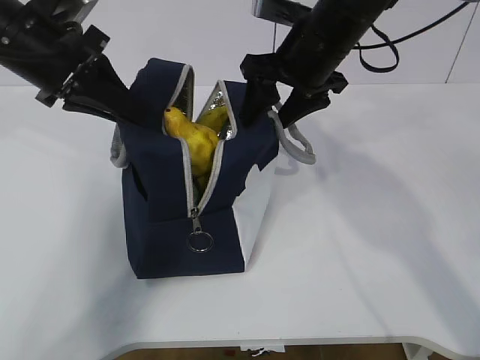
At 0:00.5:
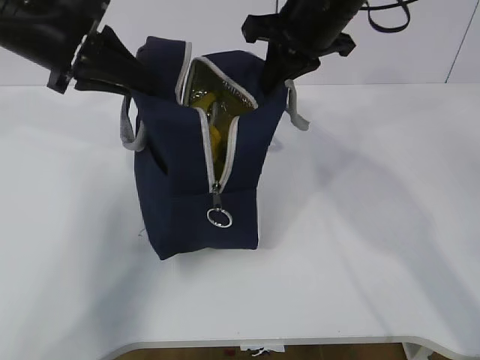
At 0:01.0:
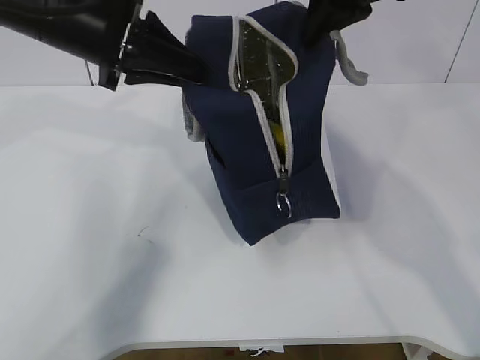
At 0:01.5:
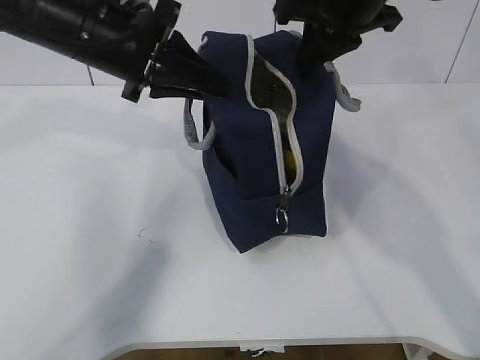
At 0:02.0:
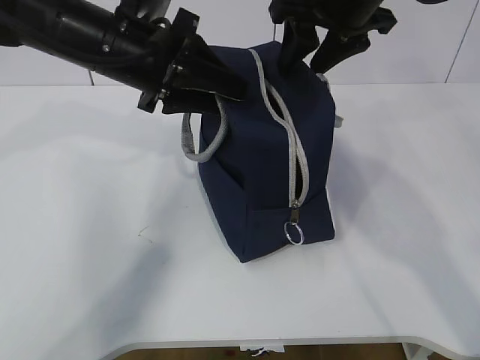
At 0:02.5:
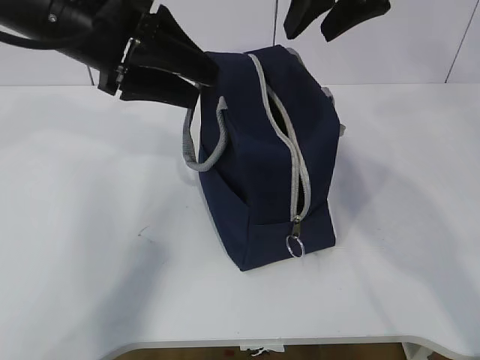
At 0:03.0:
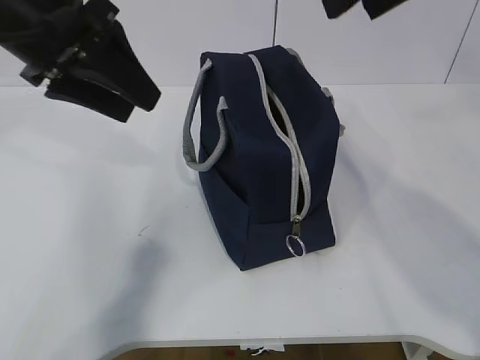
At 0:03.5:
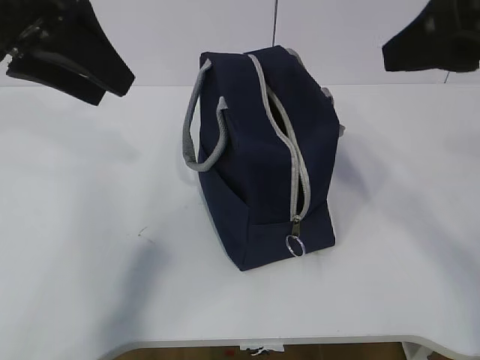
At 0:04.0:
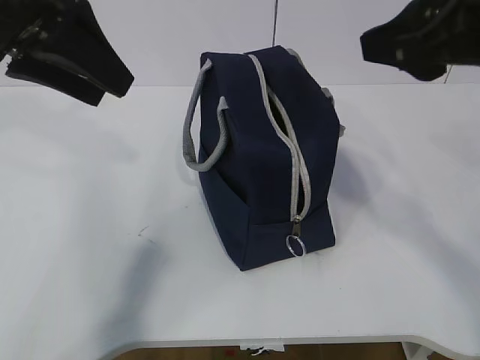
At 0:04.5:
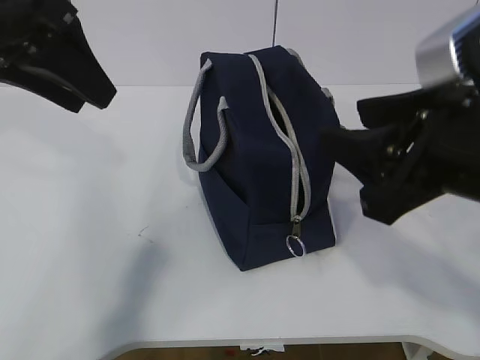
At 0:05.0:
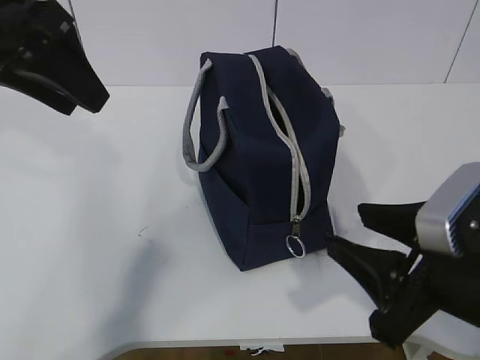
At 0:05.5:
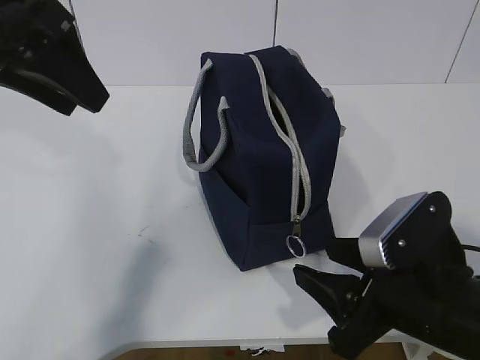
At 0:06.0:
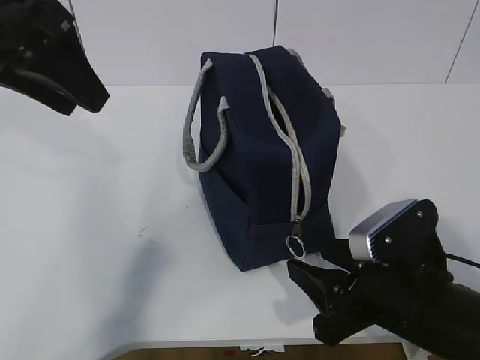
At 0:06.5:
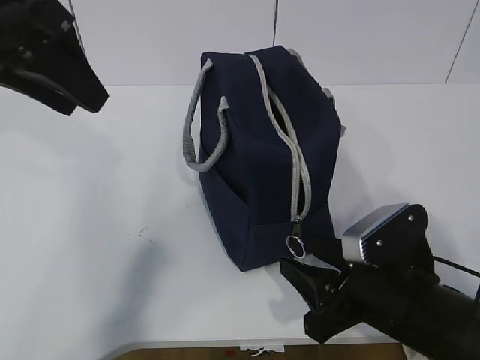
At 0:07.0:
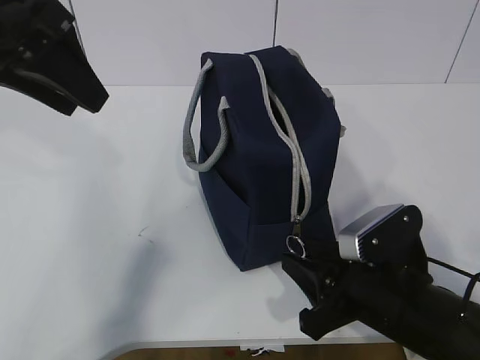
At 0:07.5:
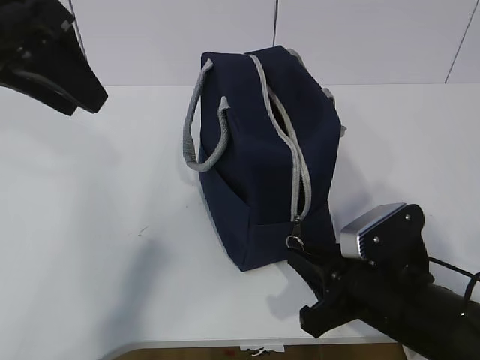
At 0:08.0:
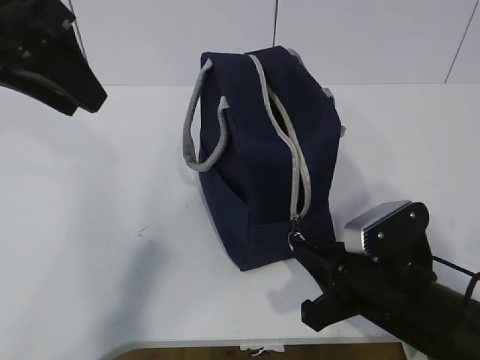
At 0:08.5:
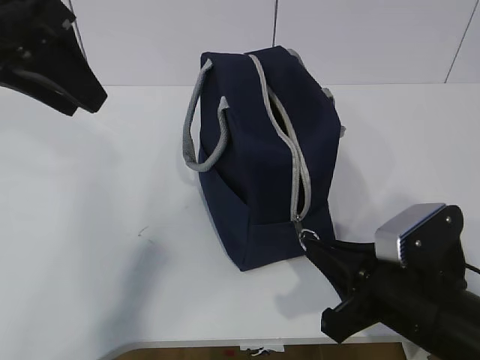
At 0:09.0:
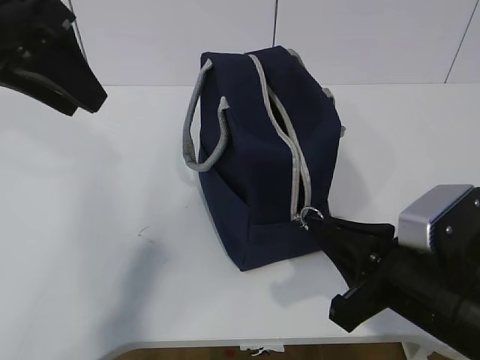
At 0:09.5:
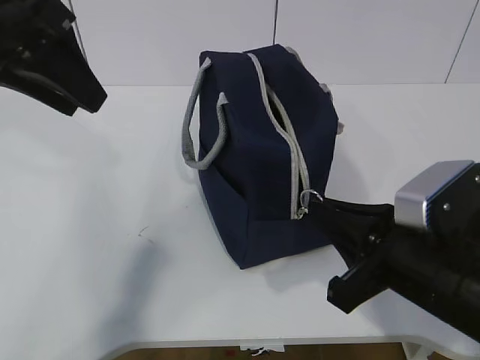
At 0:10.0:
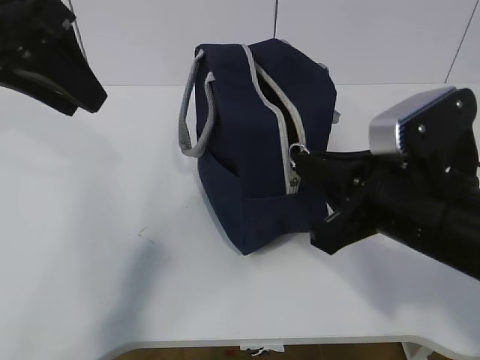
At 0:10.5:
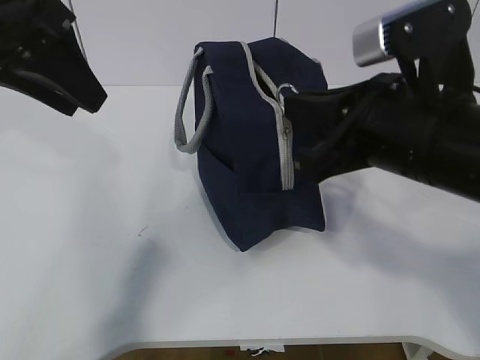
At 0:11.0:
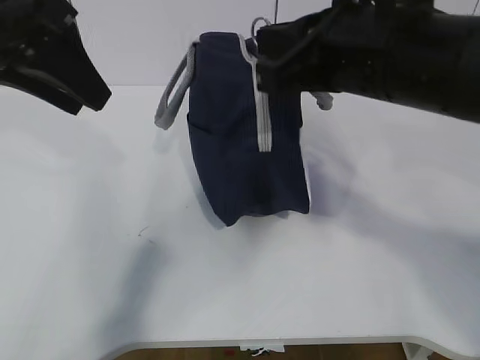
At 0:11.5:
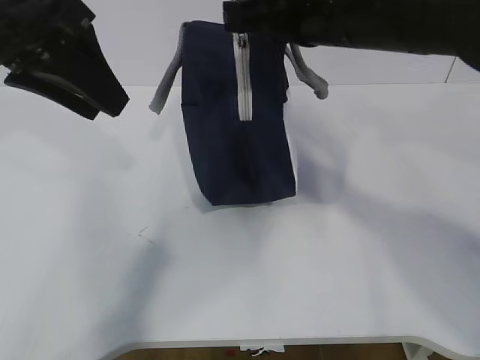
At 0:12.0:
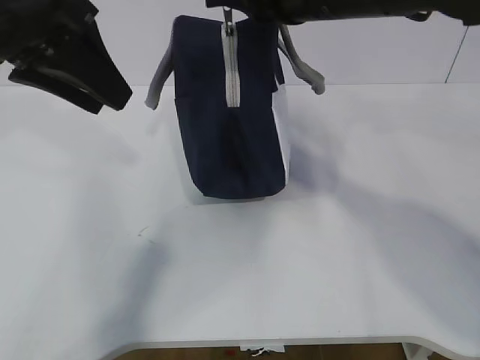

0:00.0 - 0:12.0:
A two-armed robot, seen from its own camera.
Step, 0:00.0 - 0:11.5: Grab the lunch bag with your left hand.
0:00.0 - 0:02.0: The right gripper moves upward, some 5 cm, and closes, then reopens. Meanwhile the left gripper is displaced to the right by some 10 cm, and opens up.
0:02.0 - 0:04.0: The right gripper heads backward, covering approximately 15 cm; the left gripper heads upward, to the left and backward, covering roughly 15 cm.
0:04.0 - 0:06.0: The right gripper is displaced downward by about 25 cm.
0:06.0 - 0:08.0: The right gripper closes.
0:08.0 - 0:10.0: The right gripper heads upward, covering some 10 cm.
0:10.0 - 0:12.0: The right gripper shifts roughly 20 cm upward, forward and to the left.

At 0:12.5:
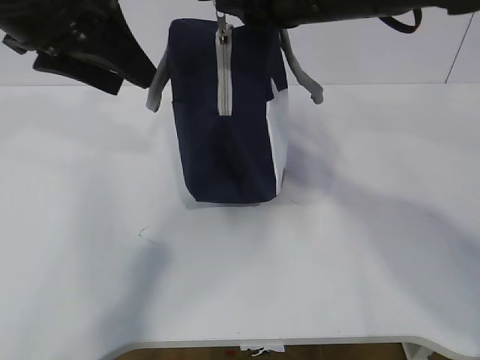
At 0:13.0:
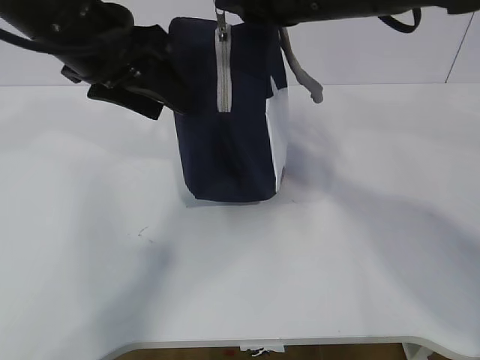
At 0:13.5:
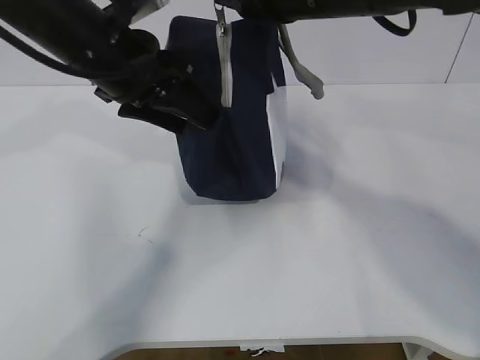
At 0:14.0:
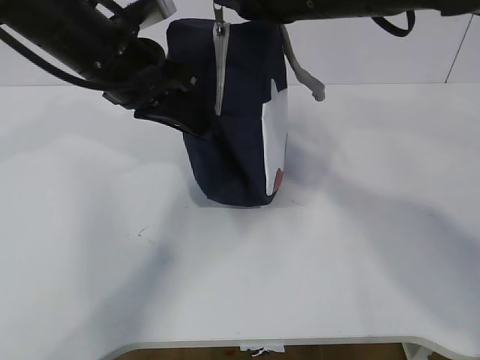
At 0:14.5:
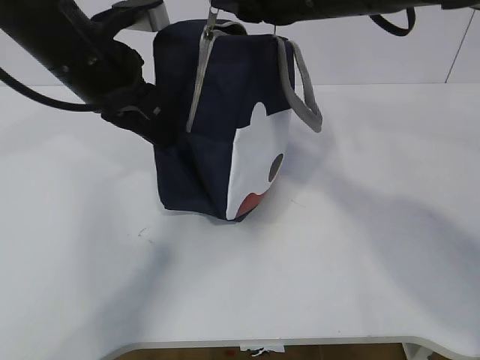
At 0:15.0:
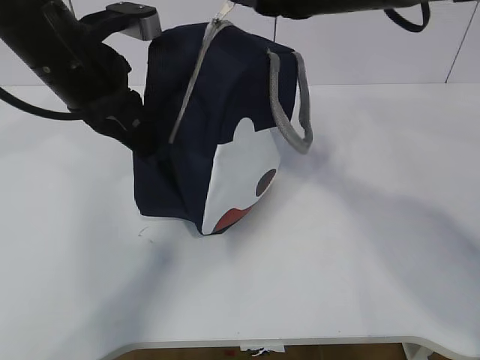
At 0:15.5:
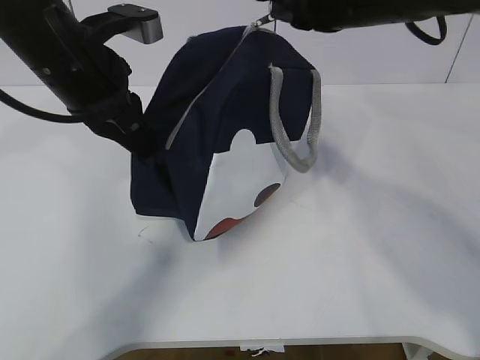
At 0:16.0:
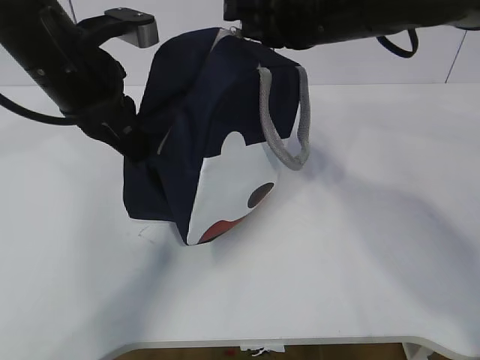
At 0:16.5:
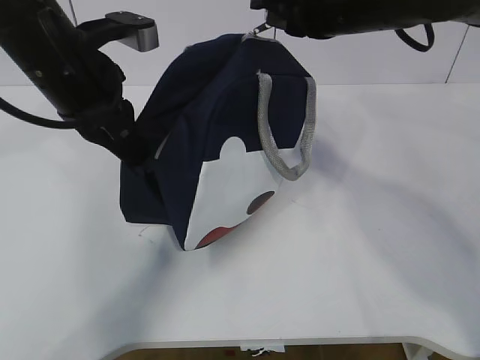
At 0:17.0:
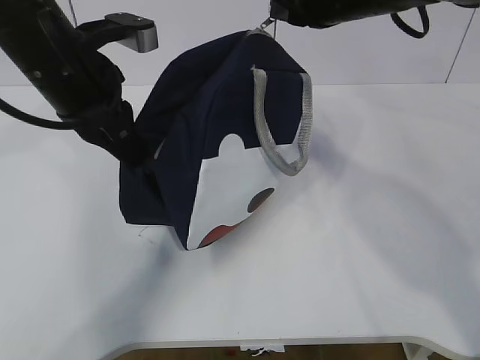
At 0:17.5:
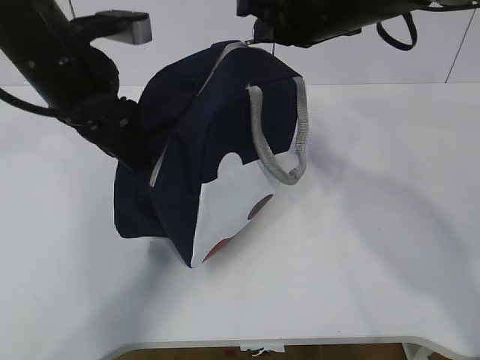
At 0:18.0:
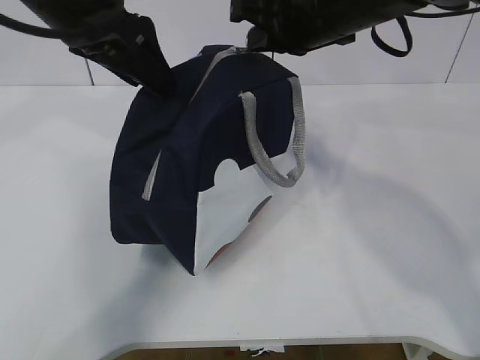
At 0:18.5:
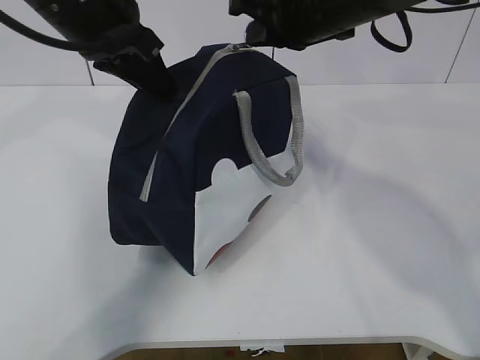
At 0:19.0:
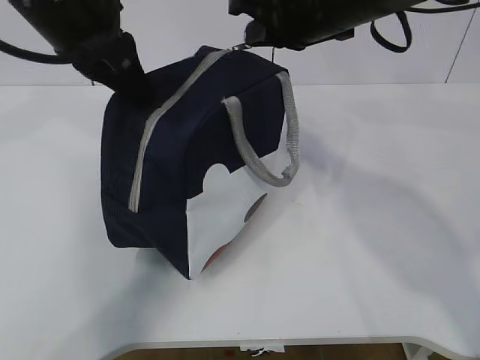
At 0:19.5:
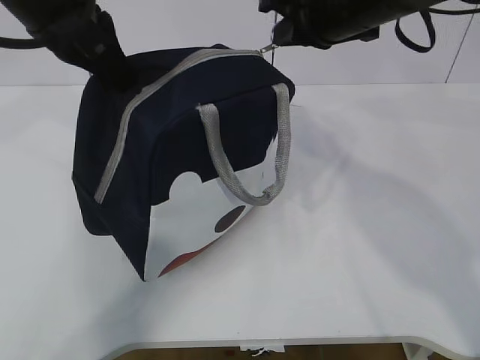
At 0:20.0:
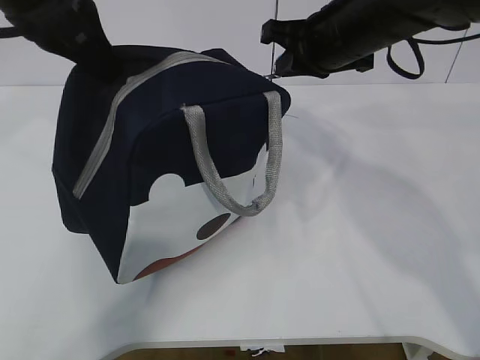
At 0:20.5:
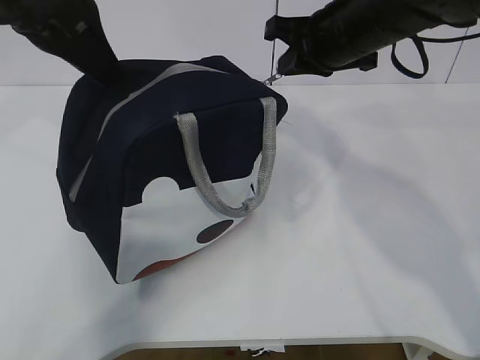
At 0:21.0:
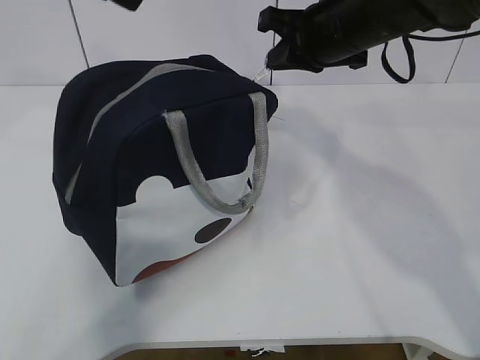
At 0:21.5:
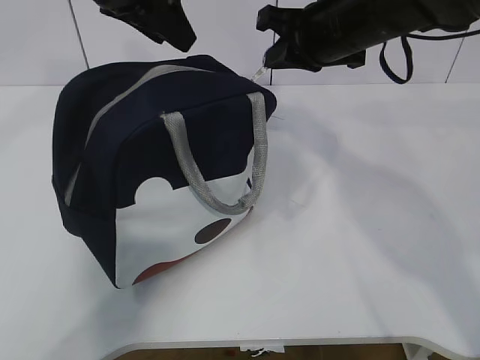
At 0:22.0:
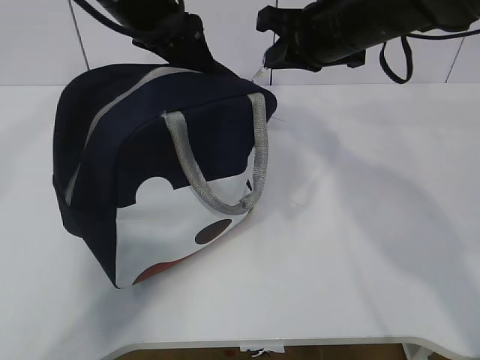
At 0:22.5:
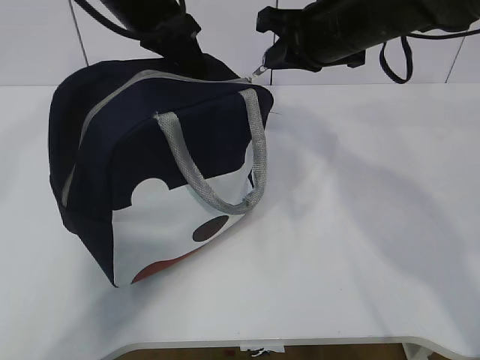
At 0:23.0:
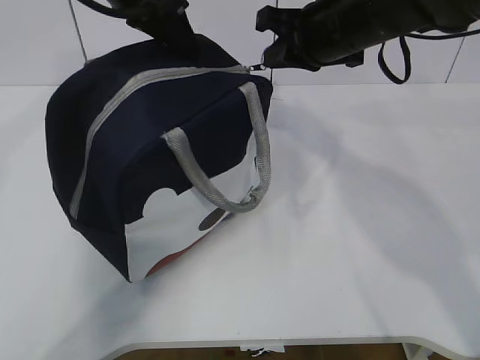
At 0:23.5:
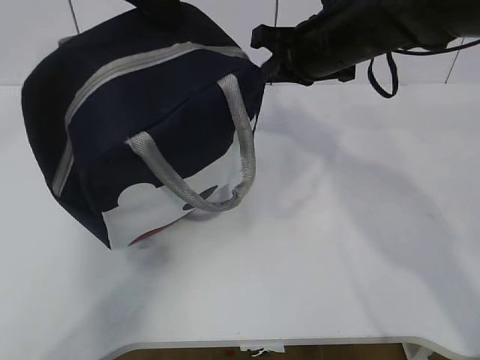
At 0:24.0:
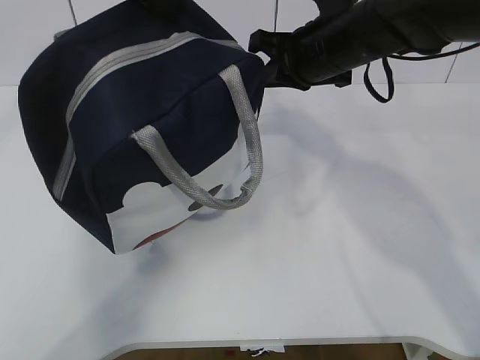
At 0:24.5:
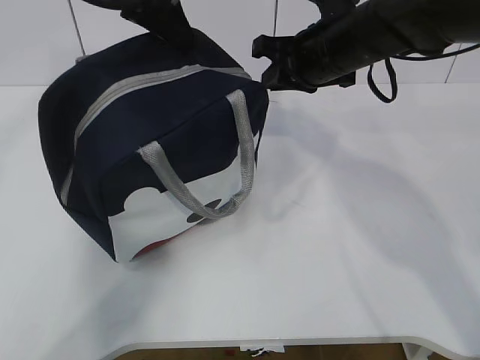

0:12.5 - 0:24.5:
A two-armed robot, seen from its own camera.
Step, 0:12.5 - 0:15.0: Pull the zipper with your right hand.
0:12.5 - 0:14.5: The left gripper is displaced downward by approximately 10 cm, and closes up.
0:14.5 - 0:16.5: The right gripper is displaced forward by about 5 cm.
0:16.5 - 0:18.5: The left gripper moves roughly 5 cm, and opens, then closes again.
0:18.5 - 0:20.5: The right gripper shifts by about 5 cm. Meanwhile the left gripper moves roughly 5 cm, and opens up.
0:20.5 - 0:22.5: The left gripper travels forward, to the right and downward by roughly 15 cm, and closes up.

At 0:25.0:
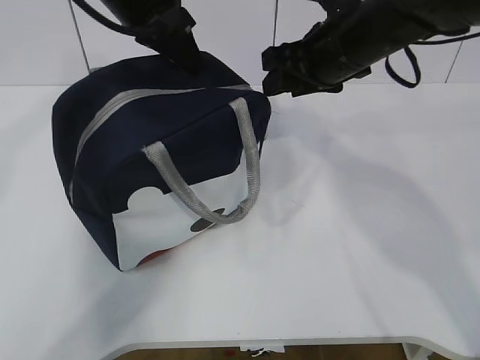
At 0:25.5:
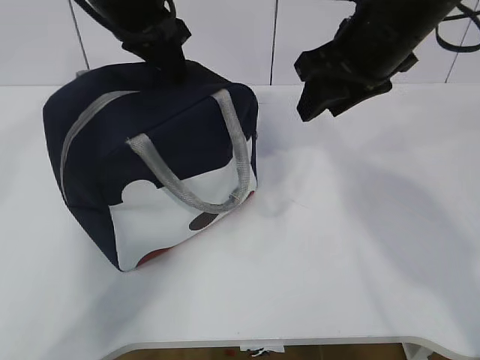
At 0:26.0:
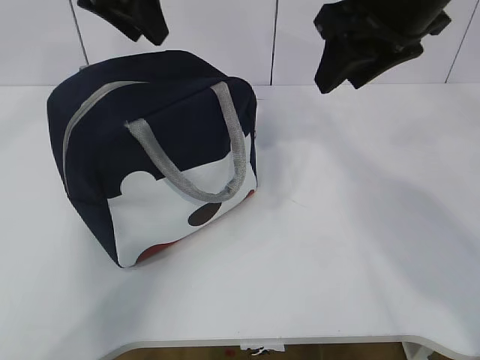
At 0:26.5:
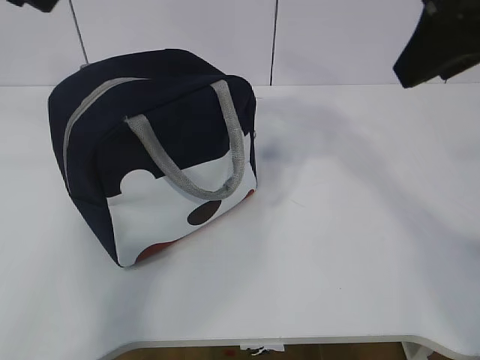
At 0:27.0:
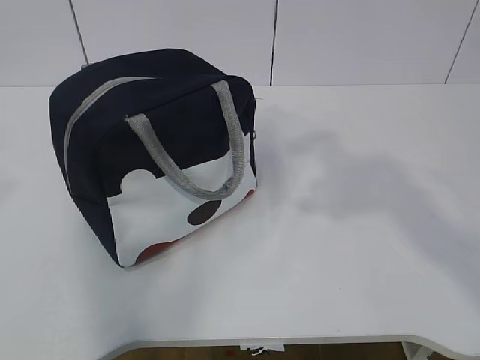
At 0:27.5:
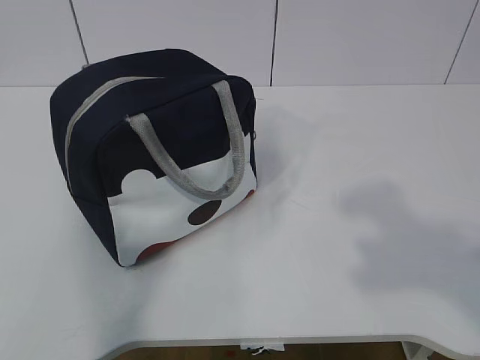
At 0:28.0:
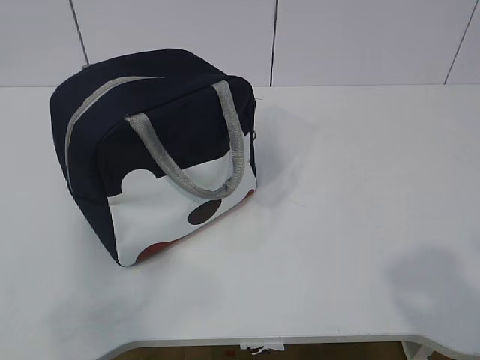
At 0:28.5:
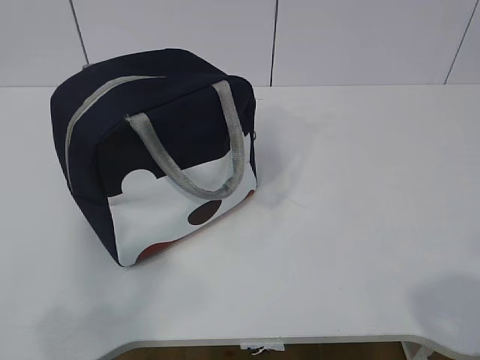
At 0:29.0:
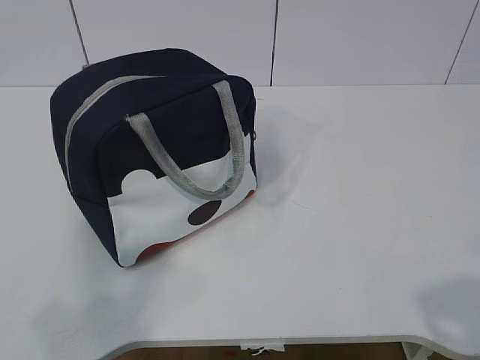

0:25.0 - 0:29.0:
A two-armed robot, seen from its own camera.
0:25.0 - 0:27.0: The left gripper is displaced backward and to the left by about 30 cm, and opens. Meanwhile the right gripper shifts approximately 30 cm backward and upward.
0:27.0 - 0:29.0: The right gripper goes roughly 20 cm backward and downward. The left gripper goes some 20 cm backward, downward and to the left.
